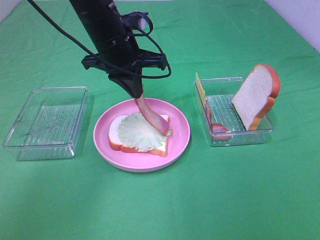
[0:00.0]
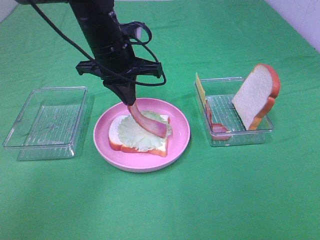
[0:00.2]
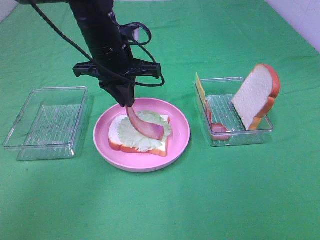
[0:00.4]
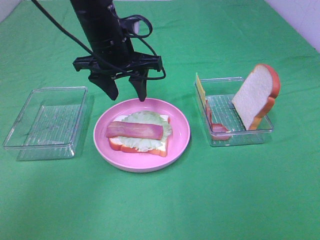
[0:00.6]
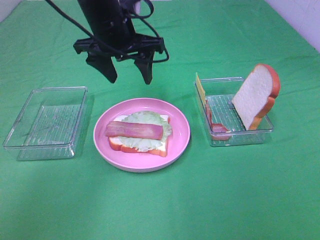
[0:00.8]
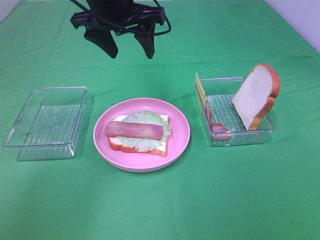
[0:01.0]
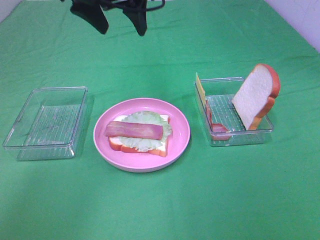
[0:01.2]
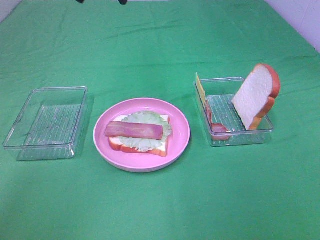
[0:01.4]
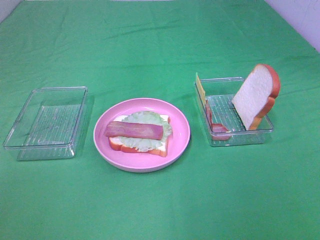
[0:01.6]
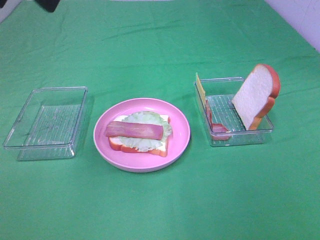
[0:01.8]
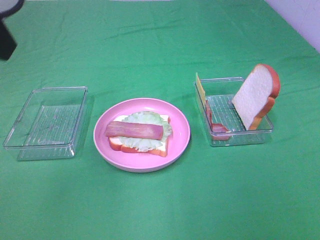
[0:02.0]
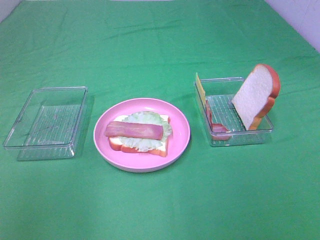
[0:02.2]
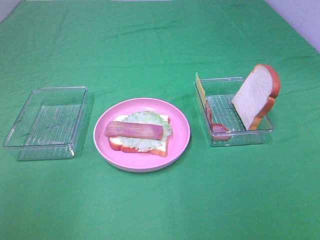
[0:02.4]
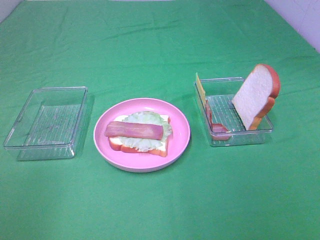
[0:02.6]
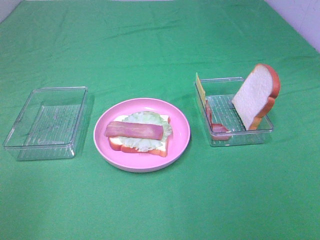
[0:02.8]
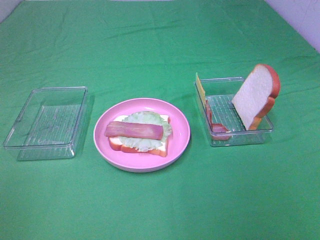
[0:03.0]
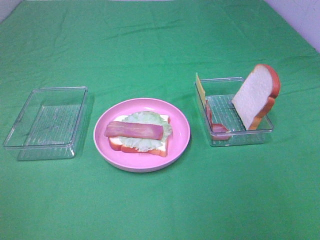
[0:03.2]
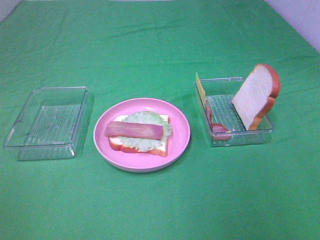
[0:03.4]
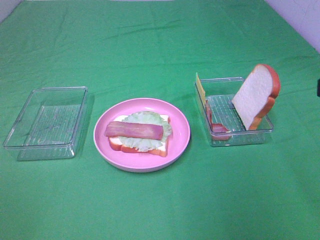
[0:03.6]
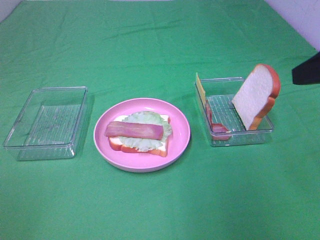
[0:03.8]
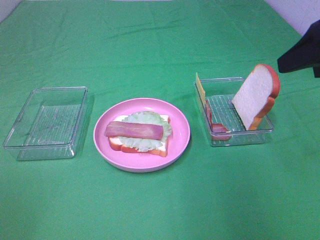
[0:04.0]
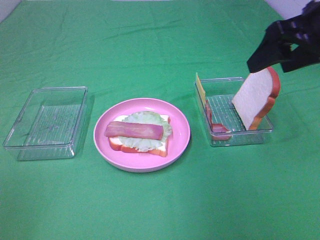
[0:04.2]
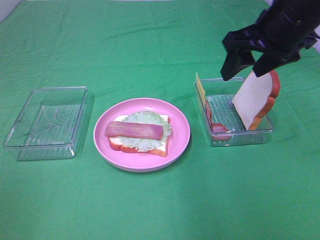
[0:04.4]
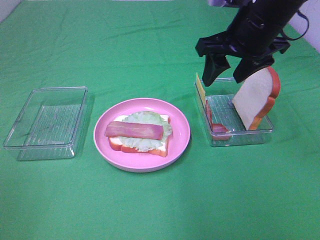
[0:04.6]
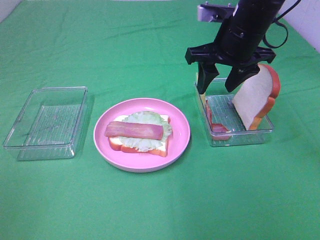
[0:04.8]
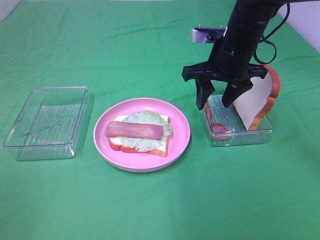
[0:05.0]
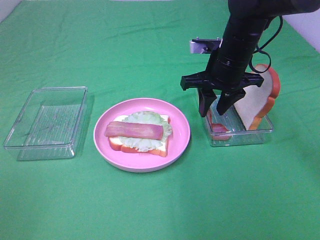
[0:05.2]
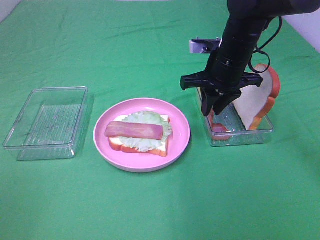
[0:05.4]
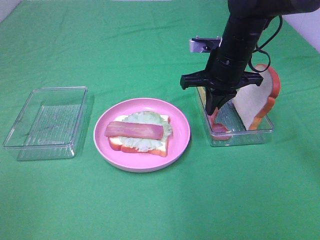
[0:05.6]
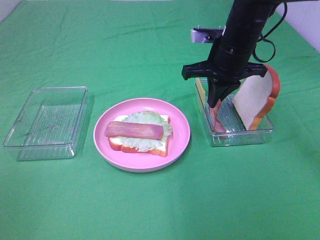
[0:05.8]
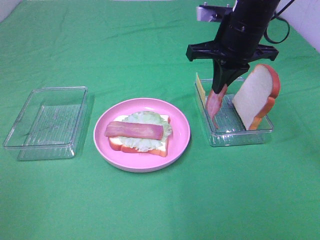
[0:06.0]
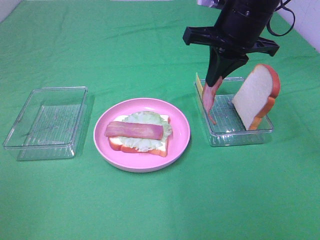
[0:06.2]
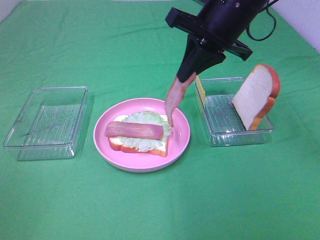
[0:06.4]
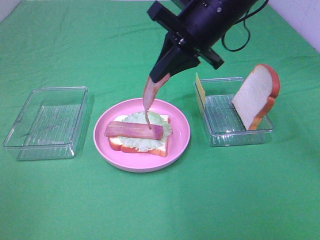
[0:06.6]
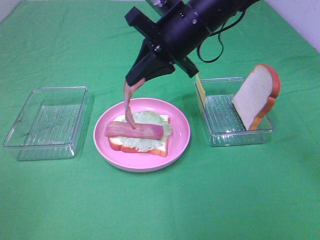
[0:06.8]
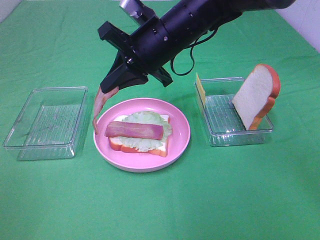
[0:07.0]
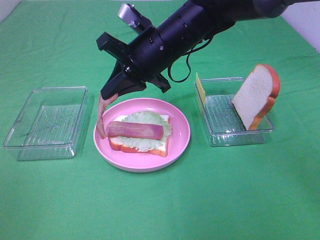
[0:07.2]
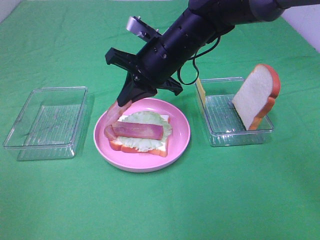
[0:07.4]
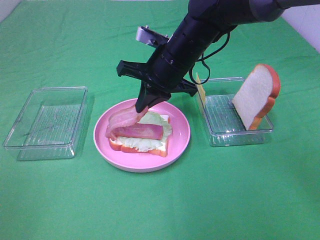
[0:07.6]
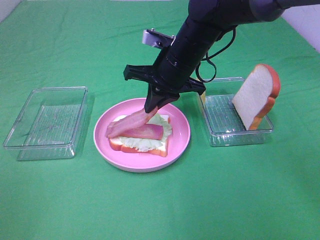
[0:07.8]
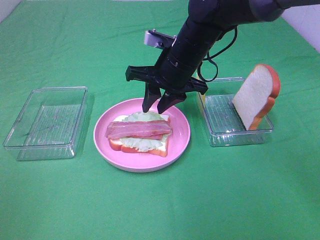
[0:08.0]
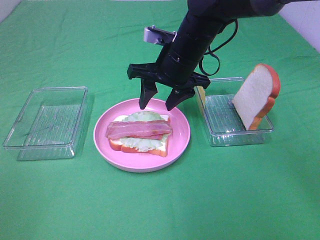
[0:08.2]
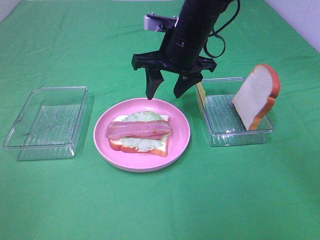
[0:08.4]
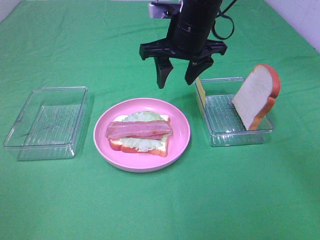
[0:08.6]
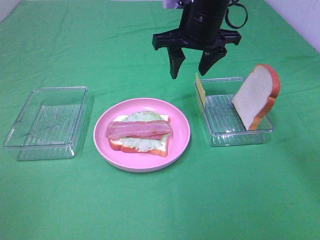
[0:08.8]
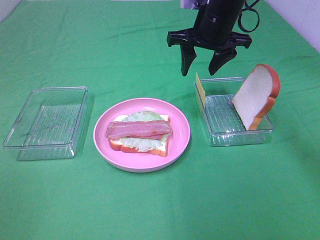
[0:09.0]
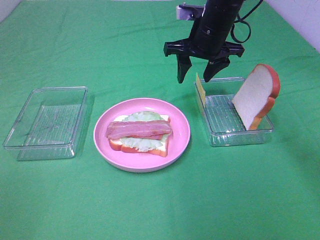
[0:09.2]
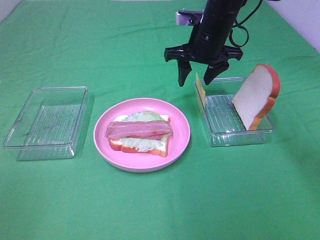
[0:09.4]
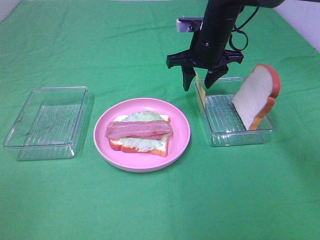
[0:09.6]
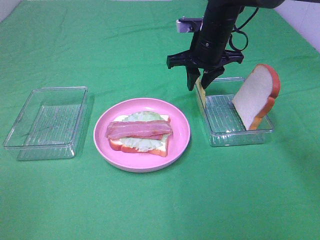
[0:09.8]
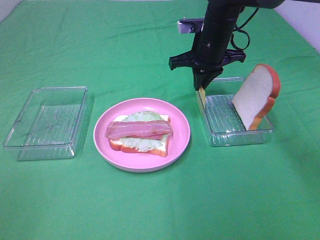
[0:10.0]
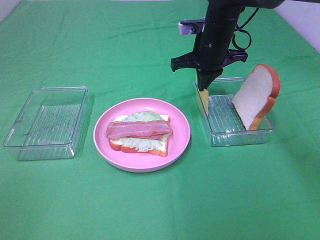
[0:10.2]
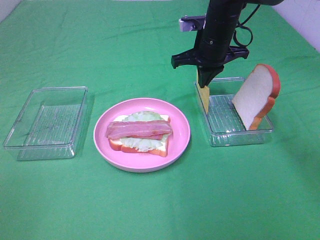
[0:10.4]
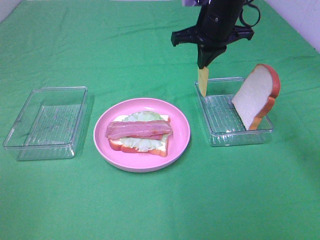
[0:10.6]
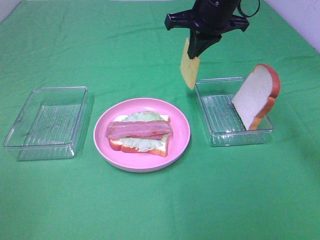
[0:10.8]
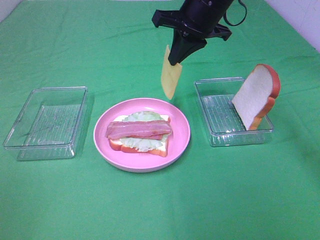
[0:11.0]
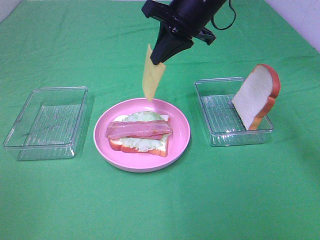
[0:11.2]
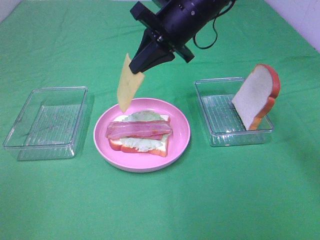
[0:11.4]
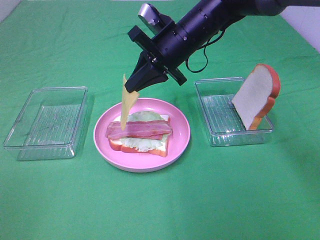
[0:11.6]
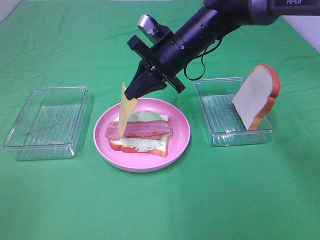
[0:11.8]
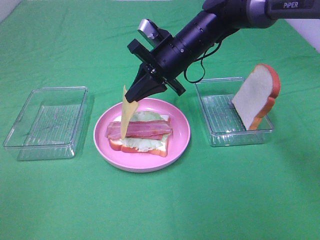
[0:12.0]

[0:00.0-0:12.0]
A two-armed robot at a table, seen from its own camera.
Task of the whole recording: Make sandwiches.
Step, 0:00.6 to 0:05.6: Right hand:grab the bacon.
Step, 0:05.8 to 0:08.0: Right hand:place bacon on bacon.
Step, 0:08.2 to 0:10.2: Right hand:grab the cheese slice.
0:00.0 to 0:01.6: The left gripper heads upward, backward and to the left, covering roughly 25 cm, and opens.
0:03.0 to 0:04.4: The right gripper goes about 30 cm forward.
0:04.4 to 0:06.0: The right gripper reaches approximately 10 cm downward, then returns, and closes up.
0:06.0 to 0:07.6: The right gripper goes approximately 10 cm to the left and downward.
0:07.6 to 0:09.0: The right gripper shifts approximately 10 cm to the right and forward, and opens its fingers.
0:09.0 to 0:10.4: The right gripper closes up.
0:10.4 to 0:12.0: The right gripper is displaced to the left by some 5 cm, and moves about 10 cm upward and comes back.

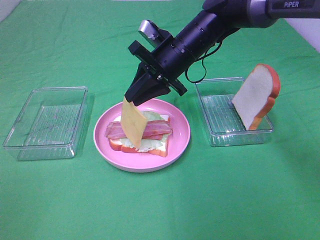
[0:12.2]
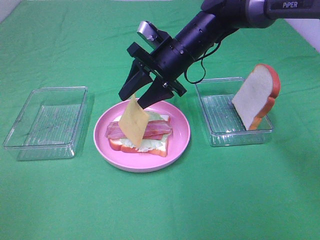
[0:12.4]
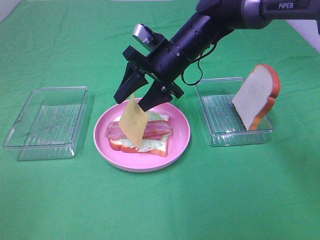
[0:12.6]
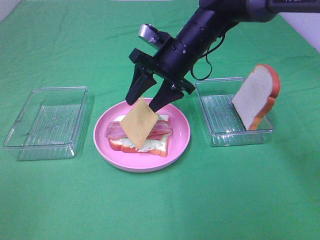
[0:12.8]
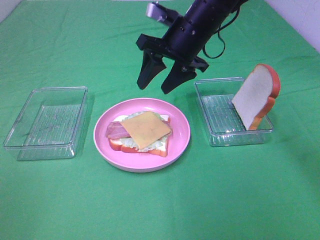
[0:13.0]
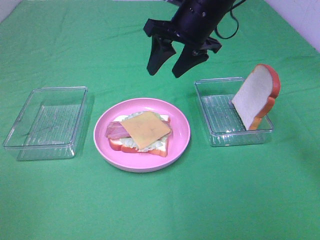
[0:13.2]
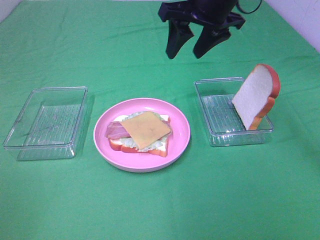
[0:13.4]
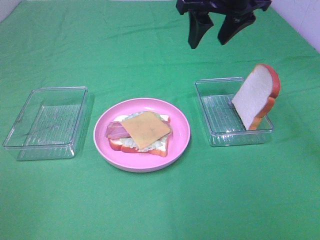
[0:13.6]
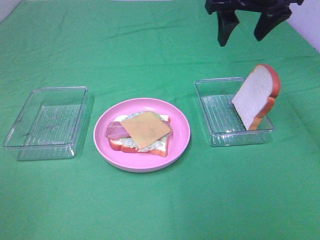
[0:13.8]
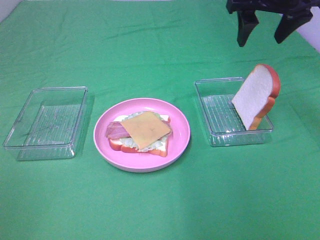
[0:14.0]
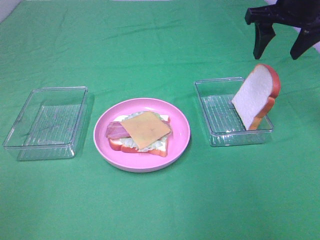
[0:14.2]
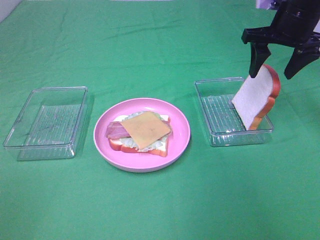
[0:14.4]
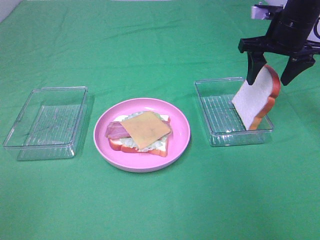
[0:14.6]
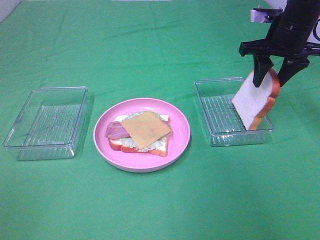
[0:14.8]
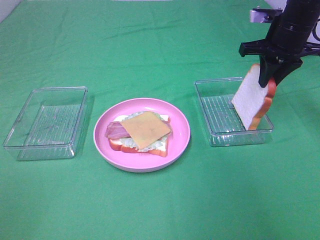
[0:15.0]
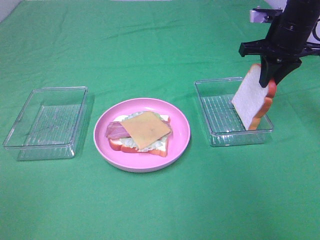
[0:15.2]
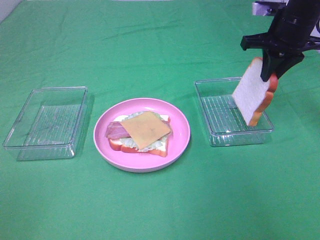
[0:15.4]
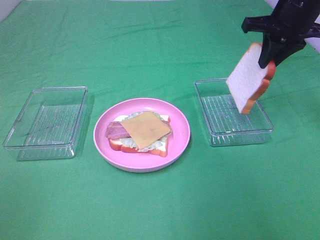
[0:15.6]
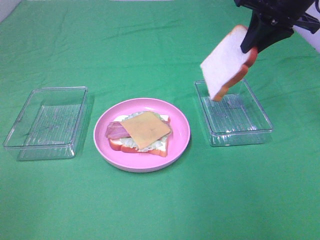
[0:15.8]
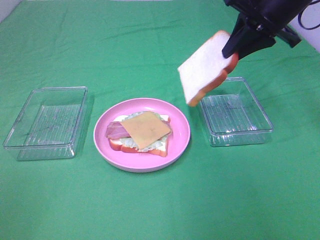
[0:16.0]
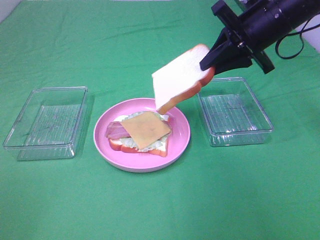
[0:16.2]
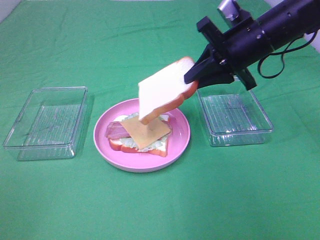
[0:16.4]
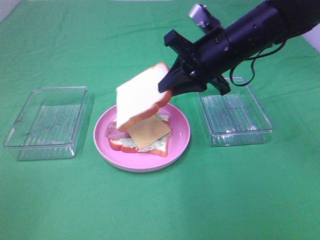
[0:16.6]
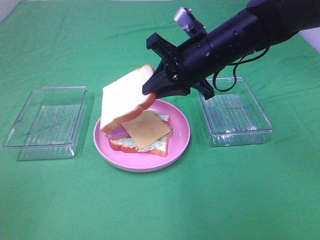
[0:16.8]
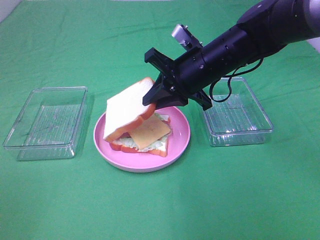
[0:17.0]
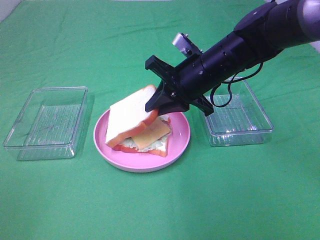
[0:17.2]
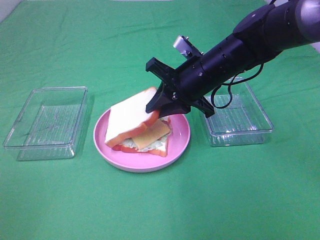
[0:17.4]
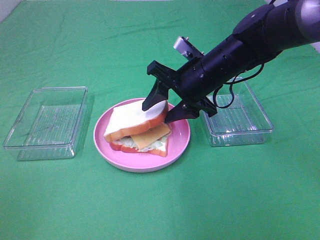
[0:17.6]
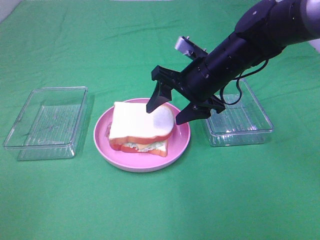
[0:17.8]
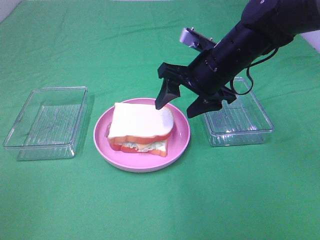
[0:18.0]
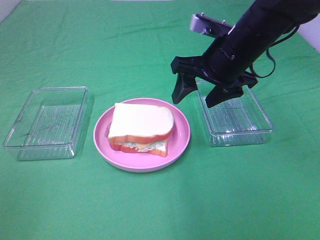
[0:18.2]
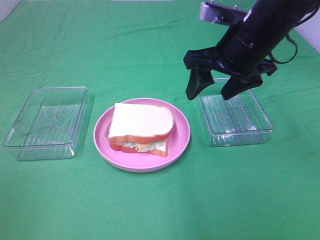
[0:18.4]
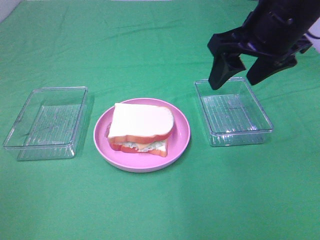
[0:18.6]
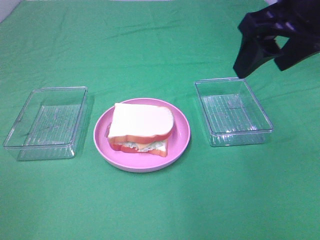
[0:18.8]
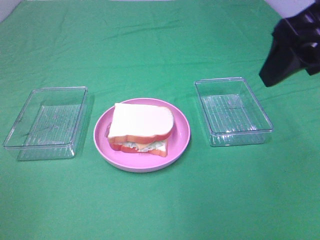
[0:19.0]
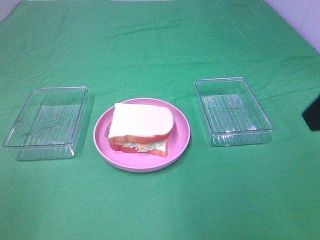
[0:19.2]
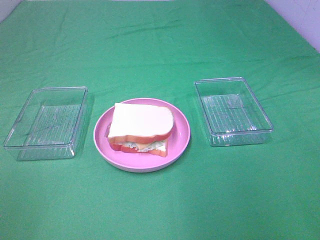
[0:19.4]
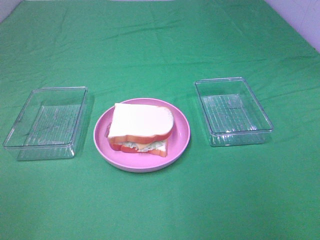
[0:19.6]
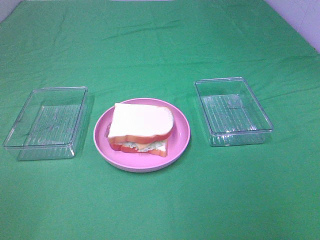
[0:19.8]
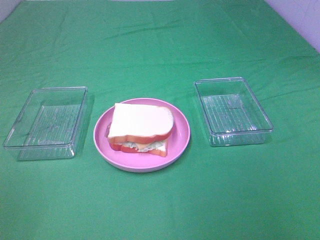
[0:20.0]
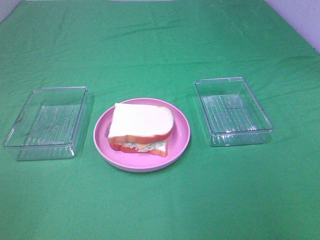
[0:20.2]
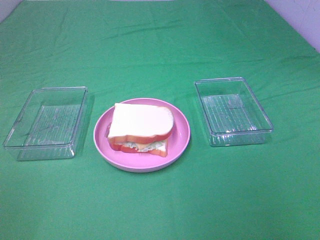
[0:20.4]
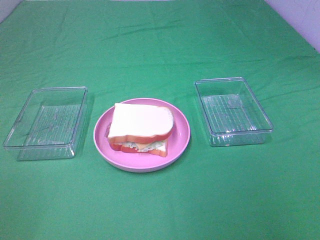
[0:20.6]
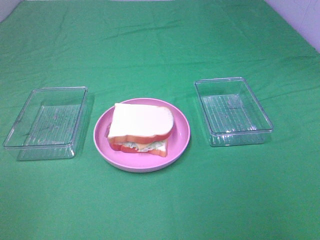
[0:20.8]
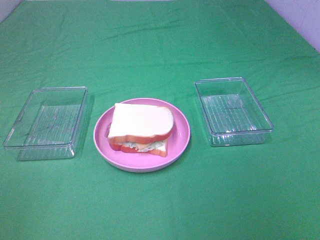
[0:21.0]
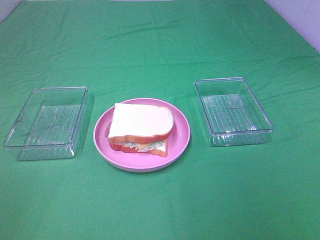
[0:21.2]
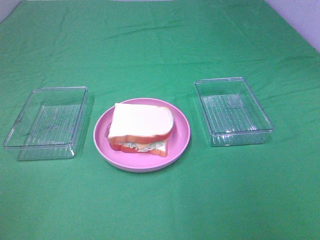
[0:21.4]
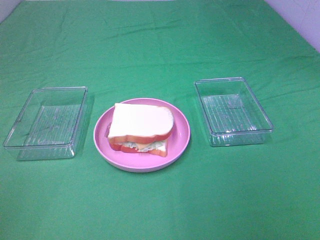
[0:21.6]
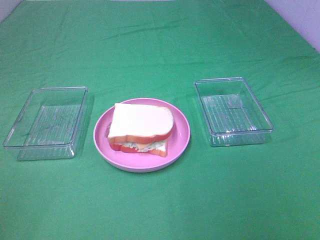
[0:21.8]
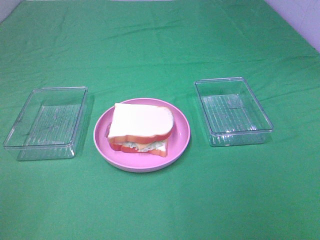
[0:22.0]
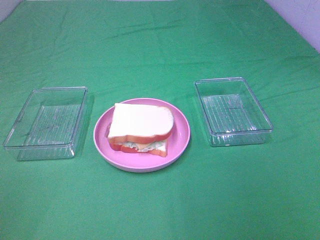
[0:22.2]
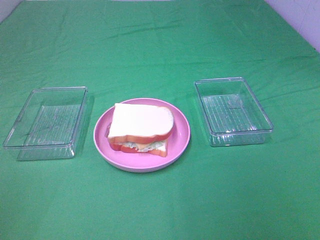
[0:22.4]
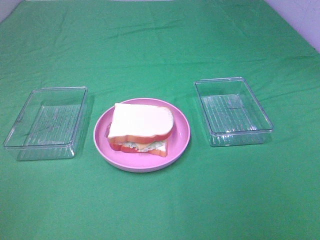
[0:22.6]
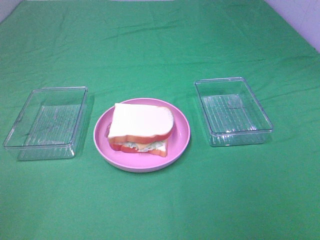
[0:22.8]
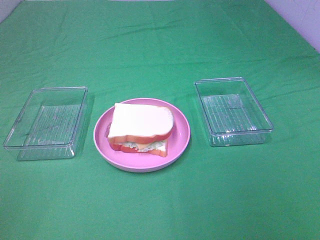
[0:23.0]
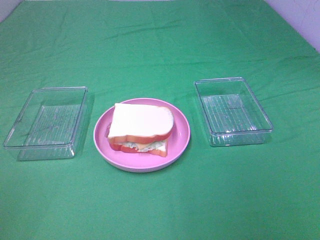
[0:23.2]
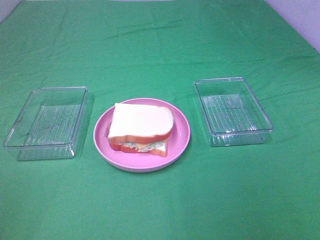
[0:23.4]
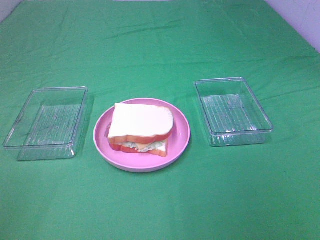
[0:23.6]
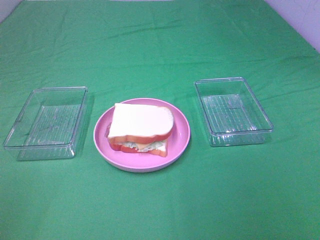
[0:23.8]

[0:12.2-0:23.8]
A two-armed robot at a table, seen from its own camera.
Task of the whole recording: Make sandwiches.
Step, 0:13.2 to 0:15.2: Right hand:grab the bread slice.
Step, 0:15.4 to 0:17.8: Right hand:place the bread slice on the cheese slice.
0:12.2 to 0:13.6: The right gripper moves upward and to the right, about 15 cm, and opens.
0:13.6 to 0:15.0: The right gripper goes some 15 cm to the right and downward, and closes up.
0:15.0 to 0:16.6: The right gripper is displaced to the left and backward by approximately 15 cm.
0:16.6 to 0:18.0: The right gripper opens up.
0:18.0 to 0:19.4: The right gripper shifts about 30 cm backward, to the right and upward.
0:22.4 to 0:23.8: The two grippers keep their place.
